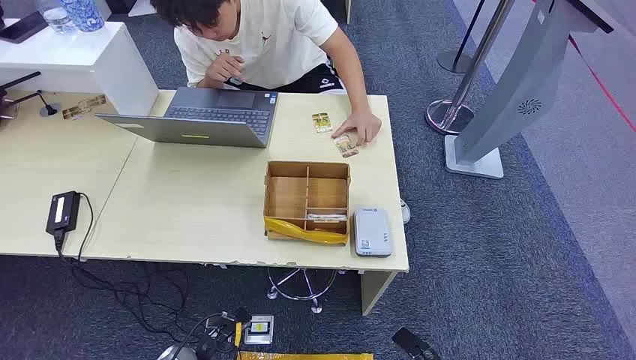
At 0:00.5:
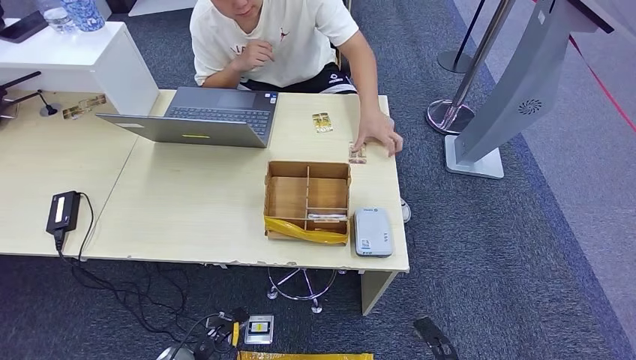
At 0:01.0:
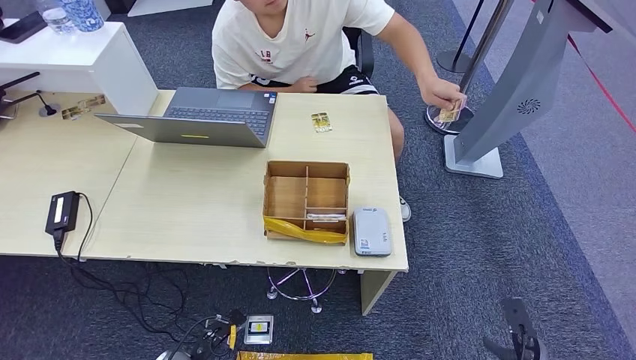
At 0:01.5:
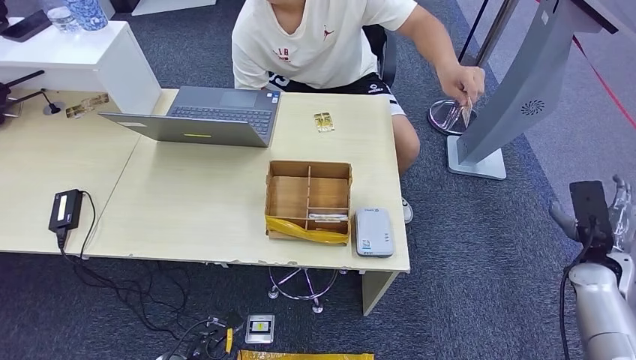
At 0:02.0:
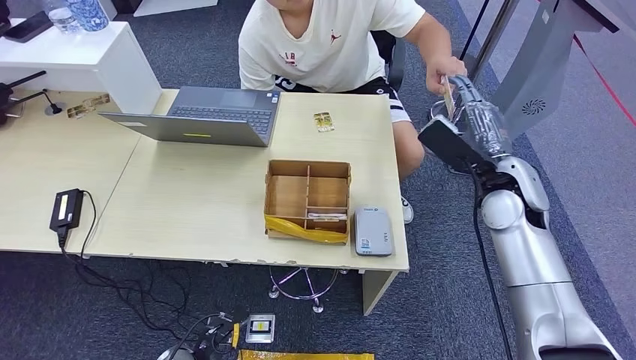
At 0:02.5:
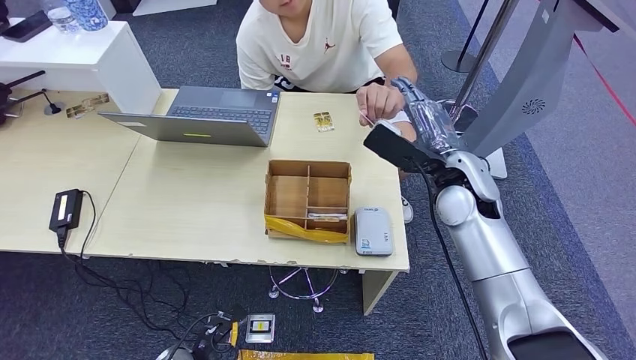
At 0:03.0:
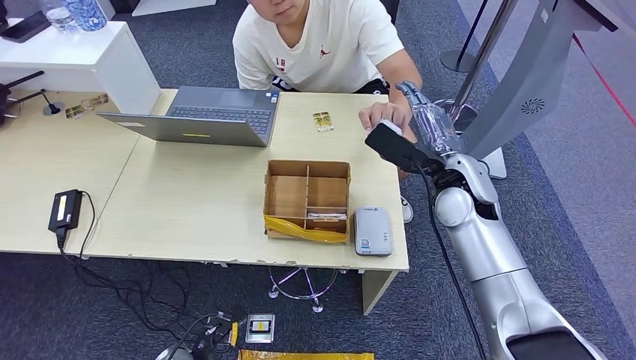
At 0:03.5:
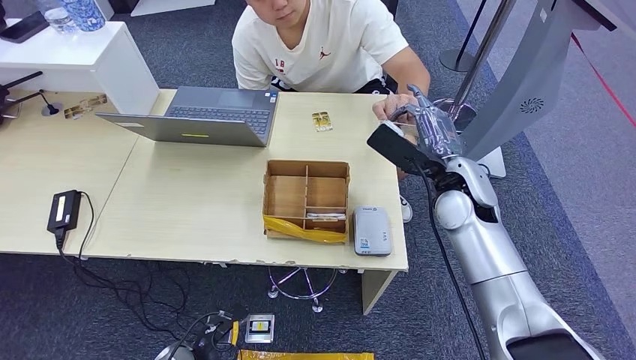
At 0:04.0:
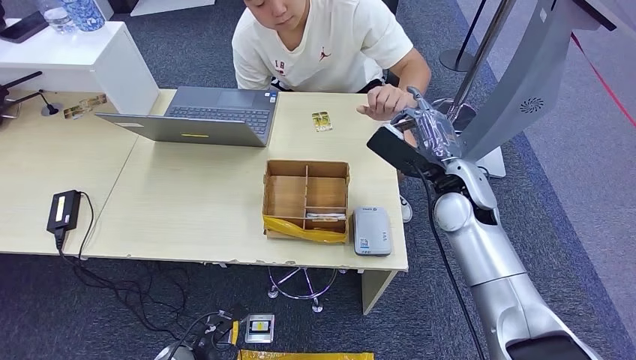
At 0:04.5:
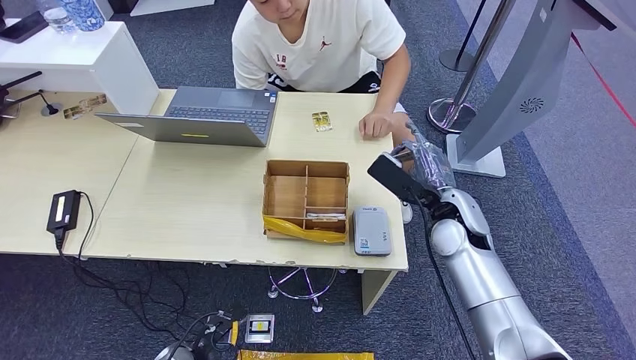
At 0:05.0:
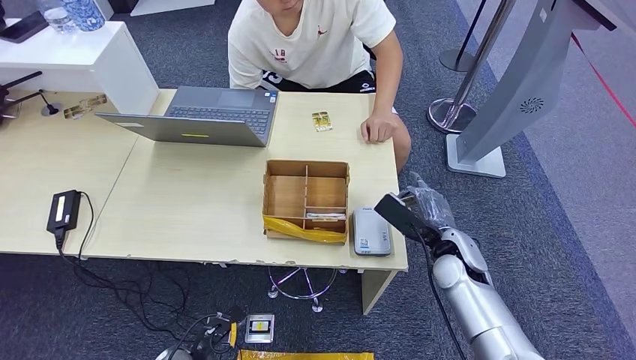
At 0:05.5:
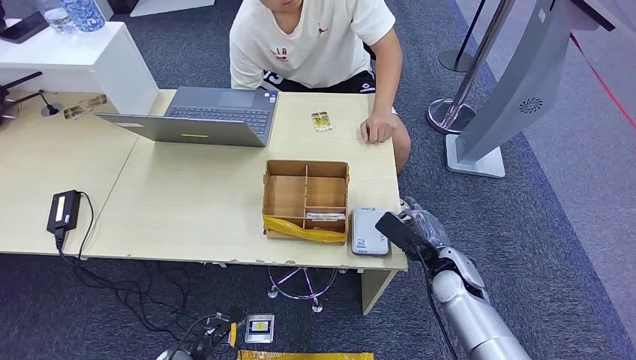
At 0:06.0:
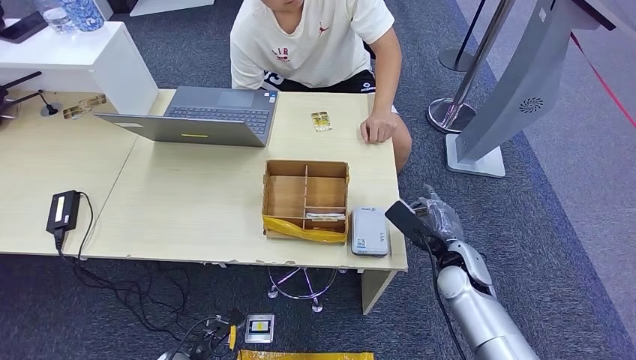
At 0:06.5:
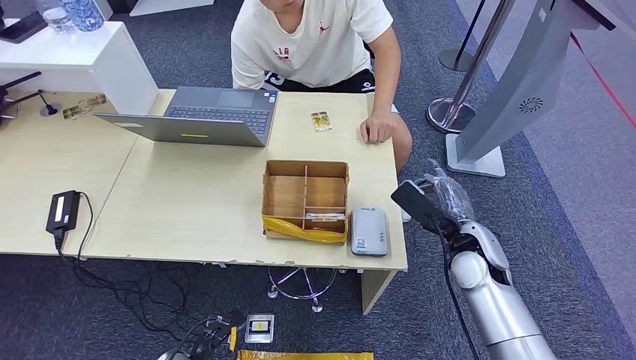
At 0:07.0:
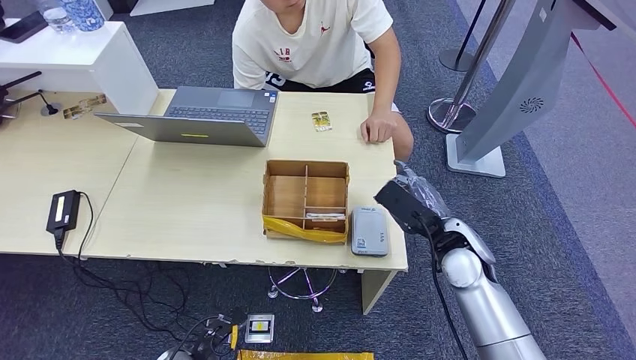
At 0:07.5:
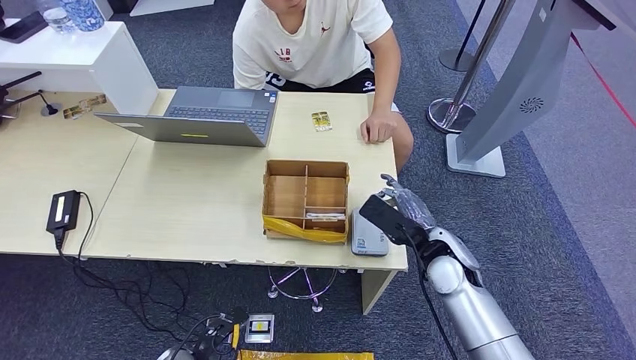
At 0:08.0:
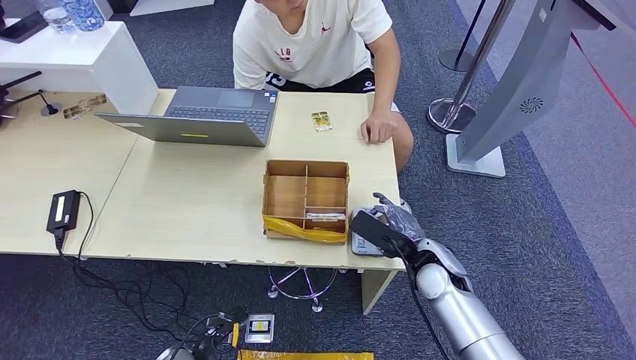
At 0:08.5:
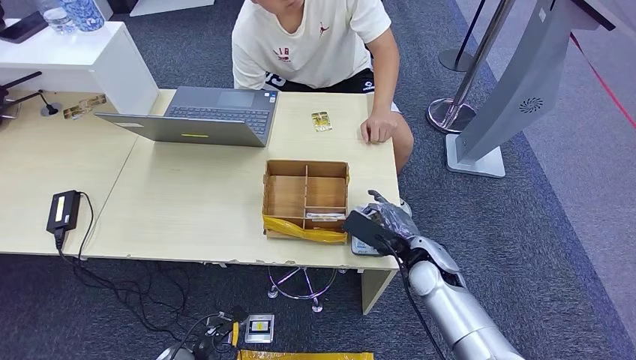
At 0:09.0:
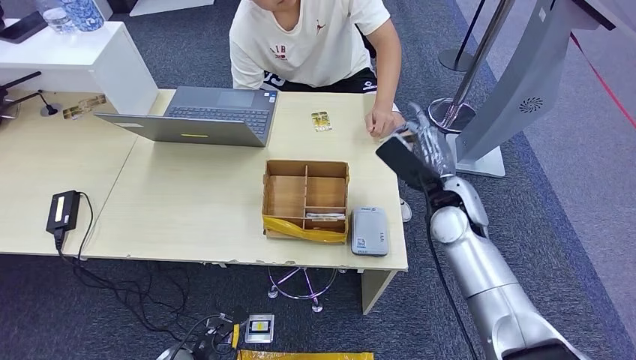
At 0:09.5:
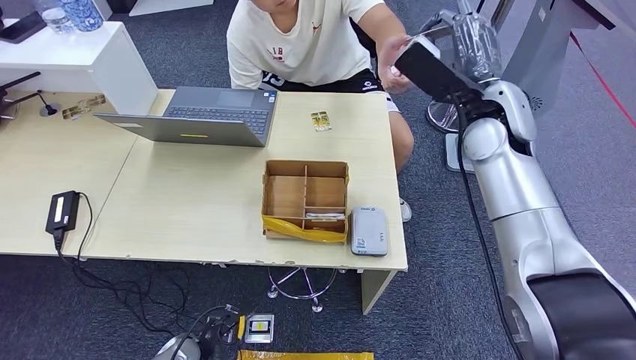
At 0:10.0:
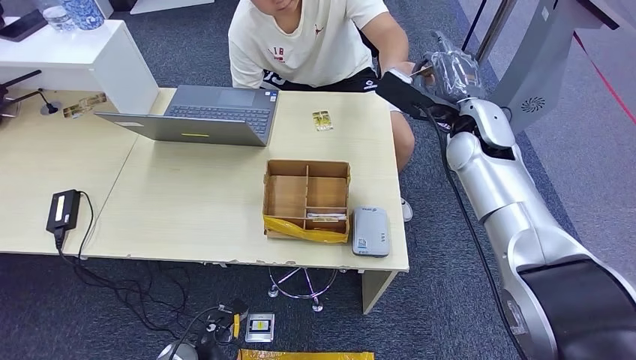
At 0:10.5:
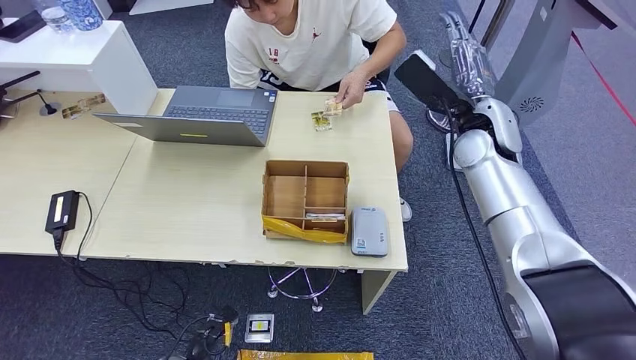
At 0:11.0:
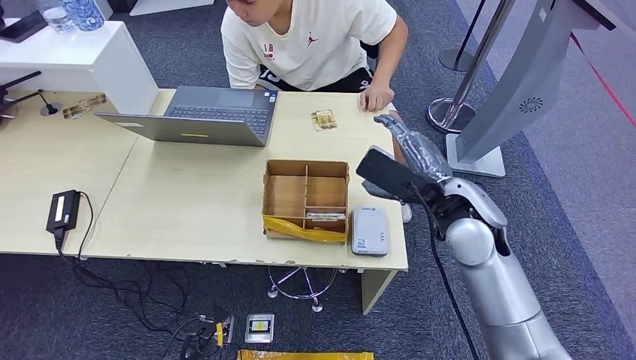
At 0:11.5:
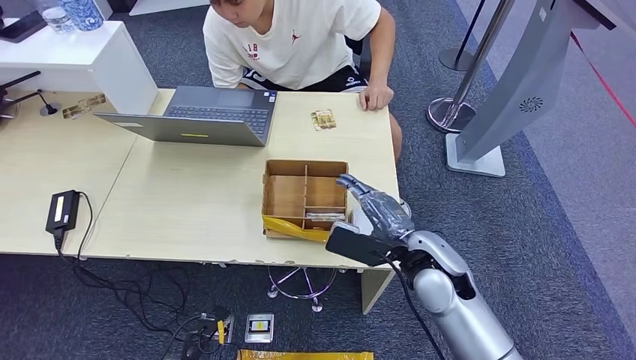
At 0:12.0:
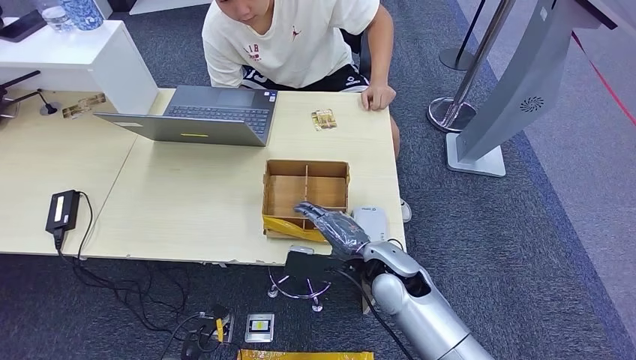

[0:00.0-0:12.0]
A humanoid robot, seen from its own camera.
Step, 0:00.0 to 0:04.5: Take the ID card from the person's hand.
Step, 0:05.0 to 0:08.0: Place the ID card on the card reader.
Step, 0:08.5 to 0:10.0: Hand the ID card to the person.
0:04.0 to 0:06.0: The right hand heads downward and backward, covering approximately 15 cm.
0:06.0 to 0:08.0: The right hand heads to the left, covering approximately 5 cm.

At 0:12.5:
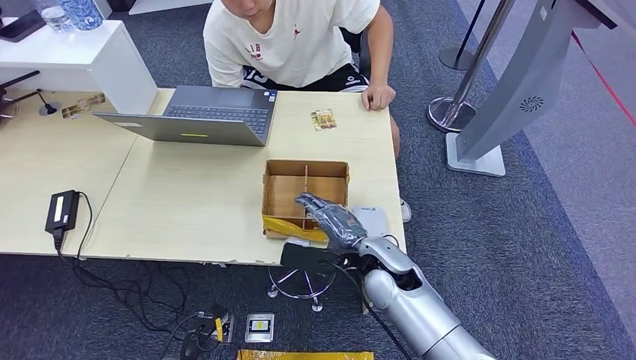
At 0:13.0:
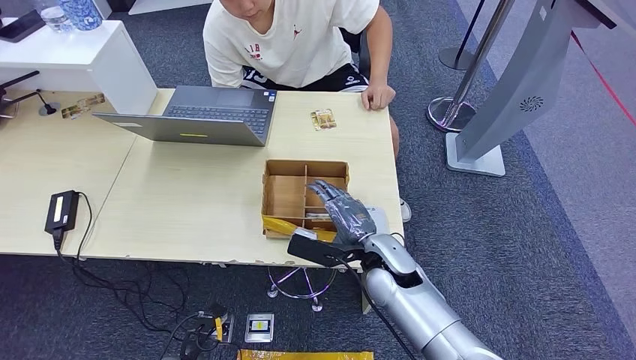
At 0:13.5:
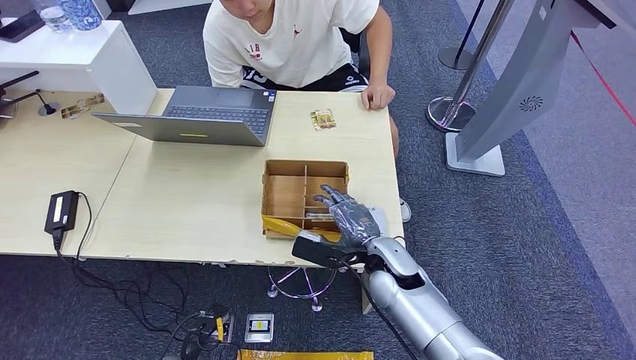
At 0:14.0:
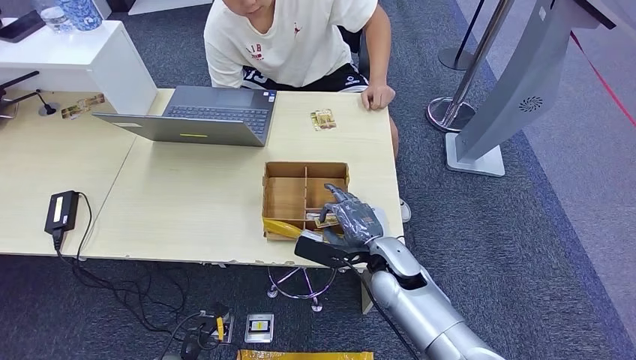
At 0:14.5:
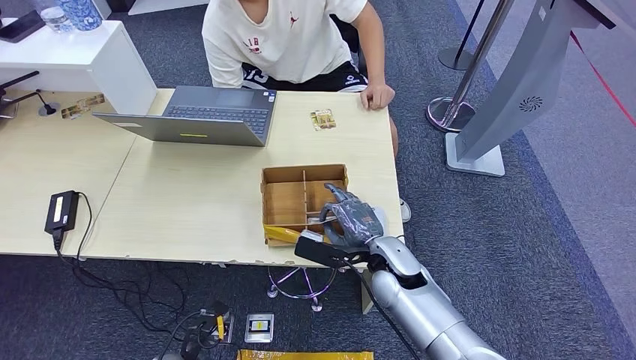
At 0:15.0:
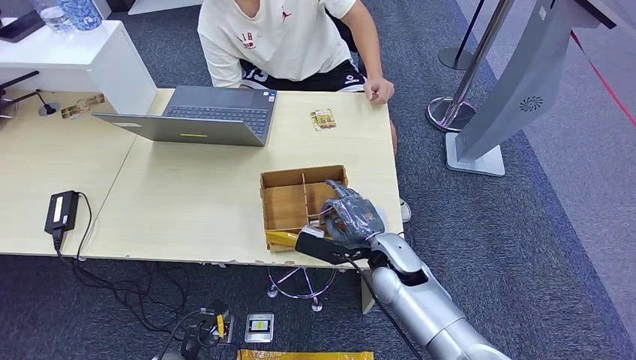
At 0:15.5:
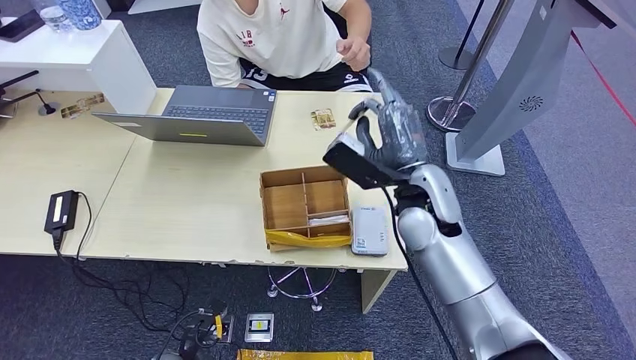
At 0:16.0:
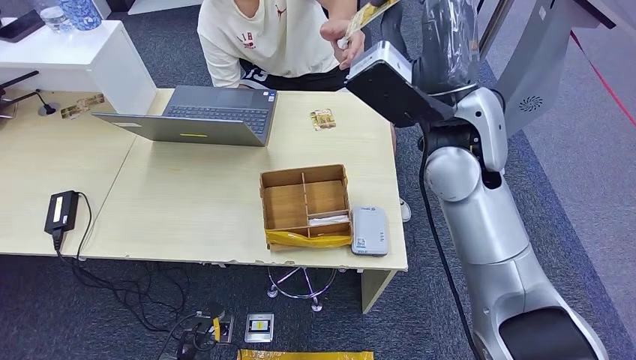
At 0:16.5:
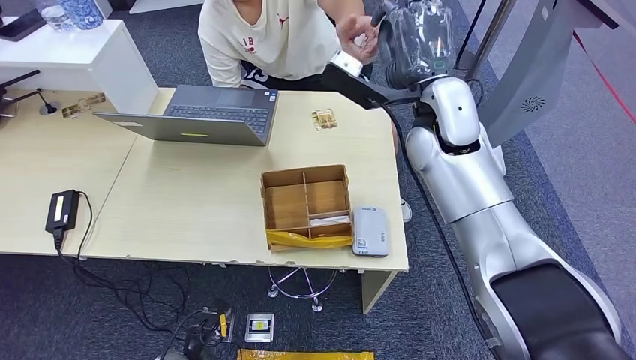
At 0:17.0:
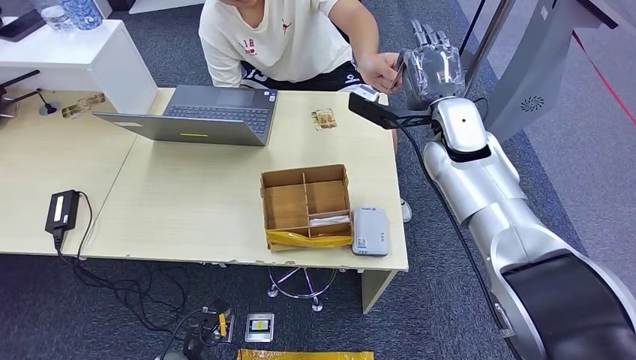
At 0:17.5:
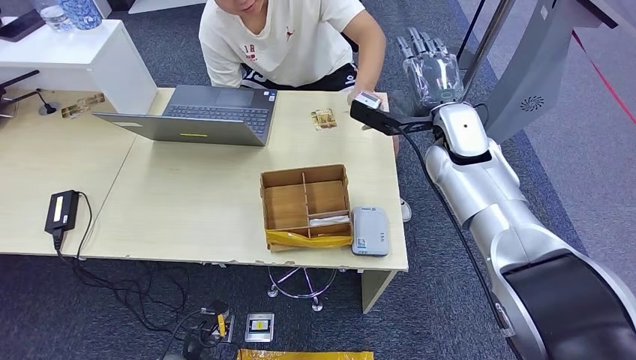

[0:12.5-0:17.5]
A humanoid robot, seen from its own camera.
Step, 0:12.5 to 0:15.5: Pick up the room key from the key card box.
Step, 0:16.0 to 0:17.5: Hand the room key to the person.
0:12.5 to 0:15.0: The hands make only small movements.
